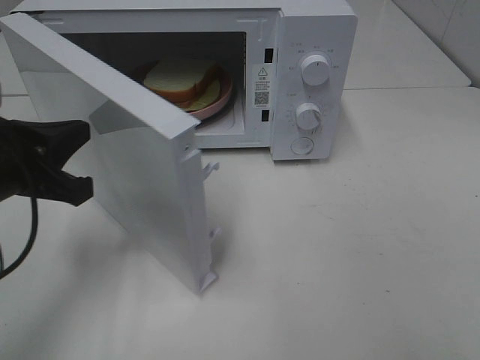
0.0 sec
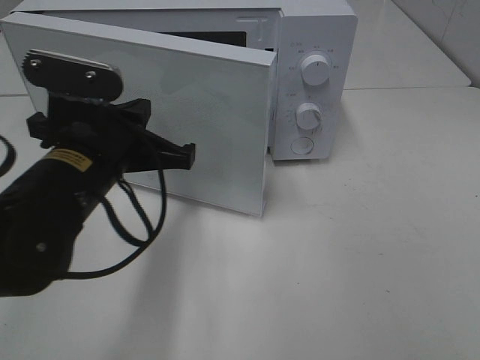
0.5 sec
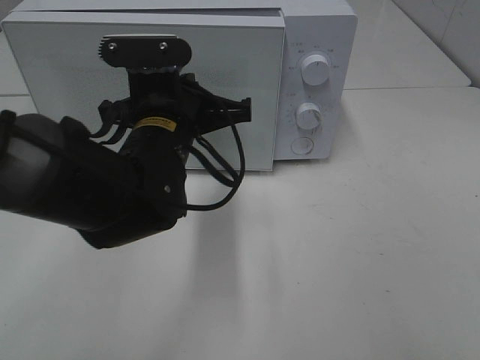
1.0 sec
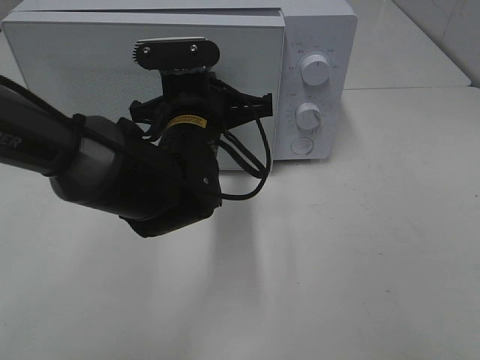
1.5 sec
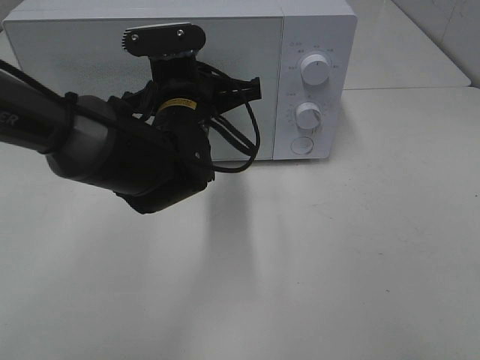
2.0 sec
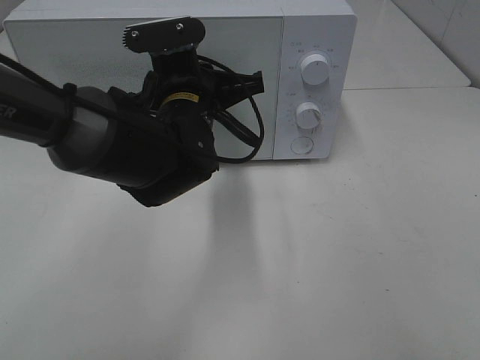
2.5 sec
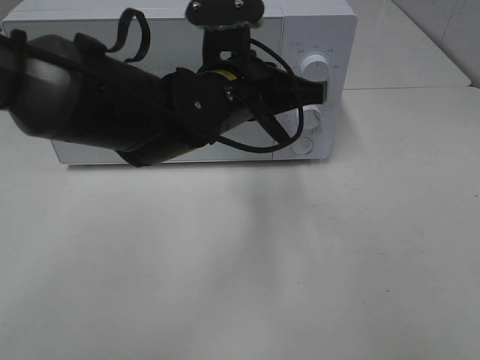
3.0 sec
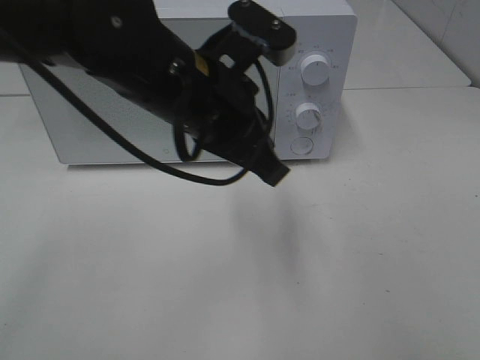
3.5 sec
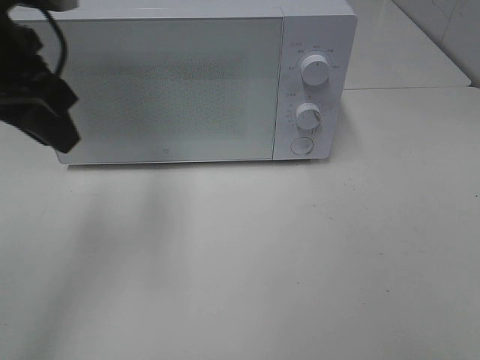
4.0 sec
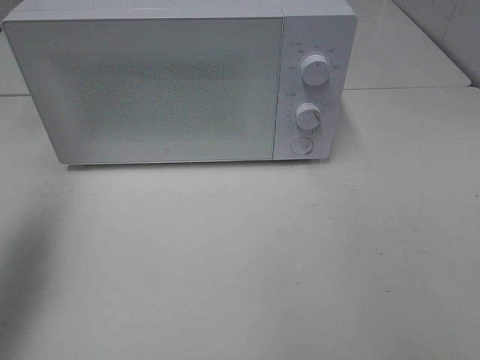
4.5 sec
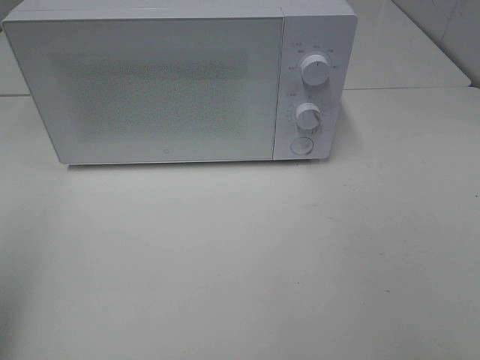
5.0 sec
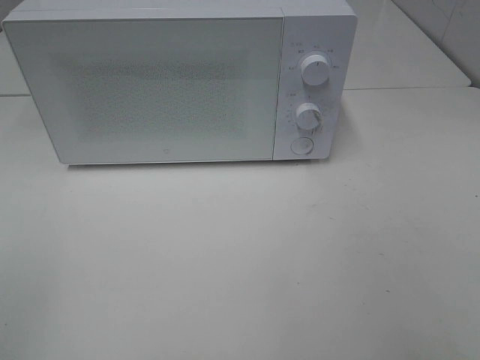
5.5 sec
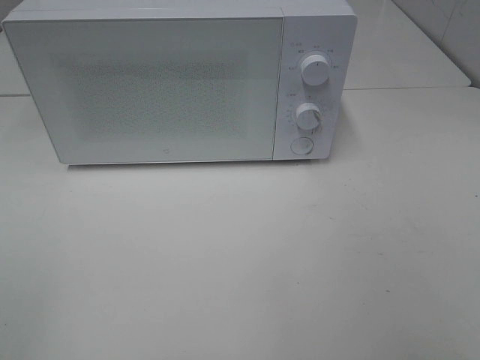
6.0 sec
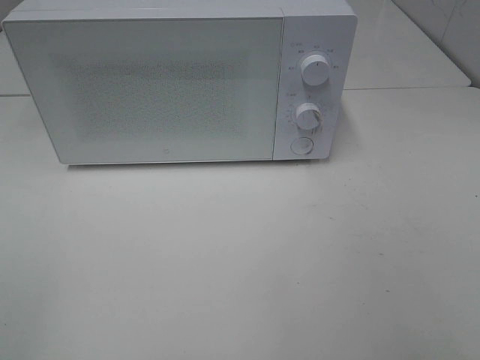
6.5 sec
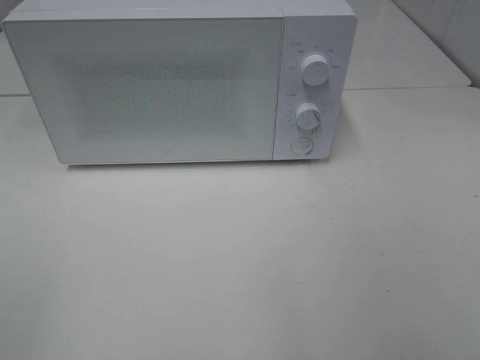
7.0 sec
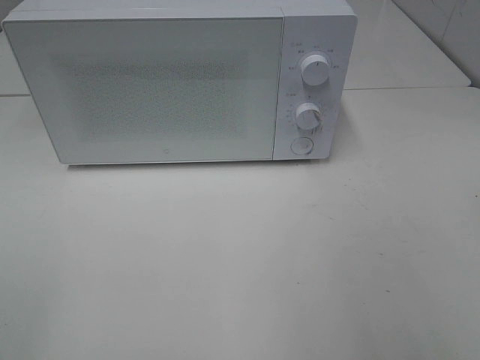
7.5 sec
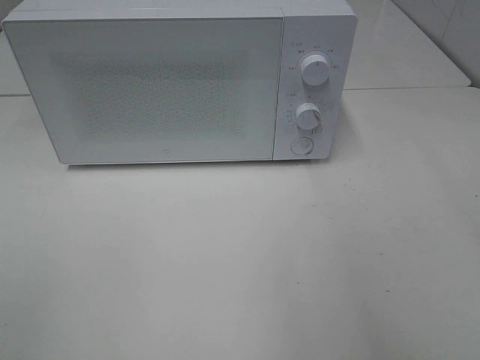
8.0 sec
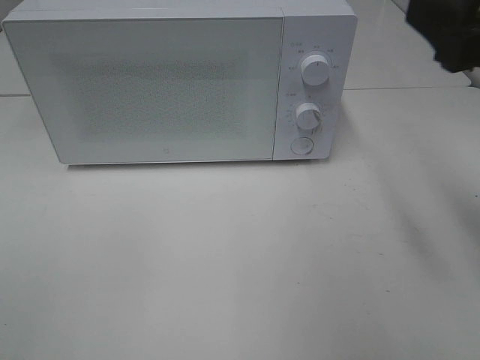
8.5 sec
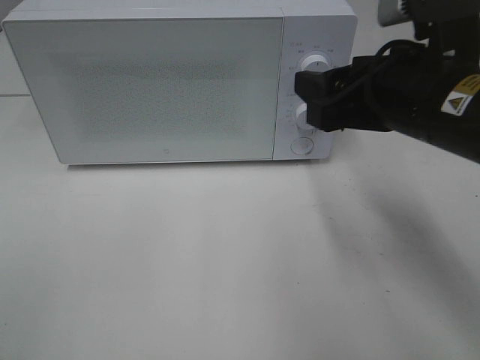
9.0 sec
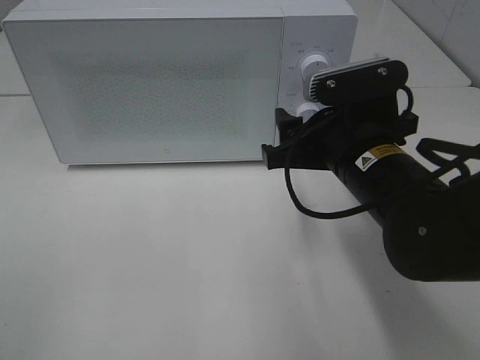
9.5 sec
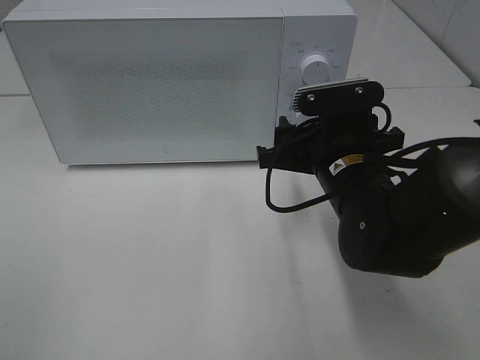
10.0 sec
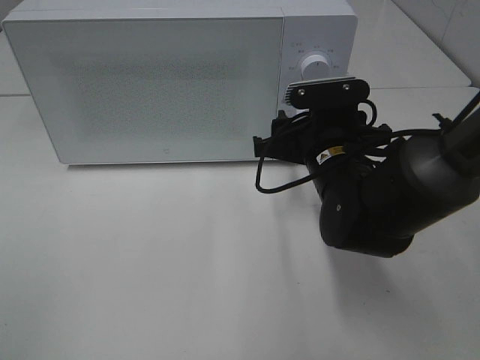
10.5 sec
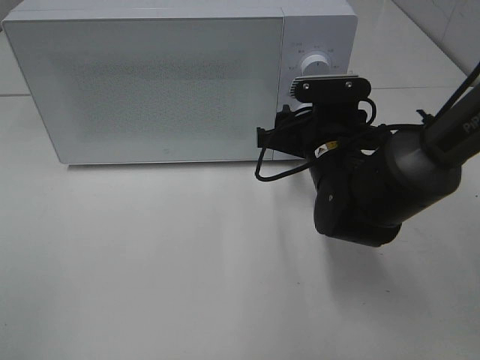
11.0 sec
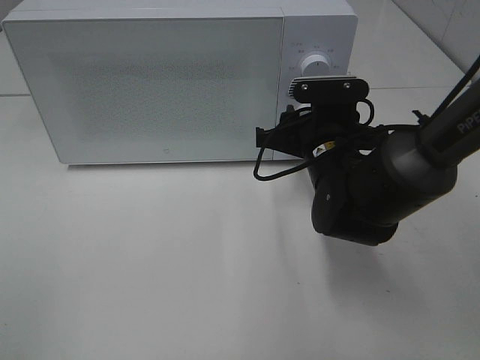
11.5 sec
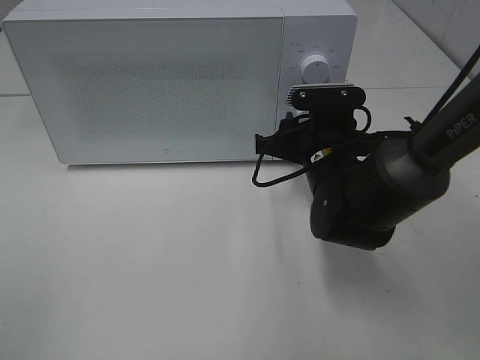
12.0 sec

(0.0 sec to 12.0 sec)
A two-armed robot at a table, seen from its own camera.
Task of the whole recording: Heat Sandwich.
Step, 0.0 sec - 3.5 sec: Left hand: close the microwave door.
0.0 sec - 2.0 sec: The left gripper heads to the right and forward, covering some 20 cm.
2.0 sec - 4.0 sec: The left gripper travels to the left and upward by approximately 20 cm, and opens.
4.0 sec - 6.0 sec: The left gripper goes roughly 30 cm backward, and opens up.
8.0 sec - 10.0 sec: The right gripper travels downward, forward and to the left by some 30 cm.
10.0 sec - 12.0 sec: The right gripper moves approximately 5 cm.

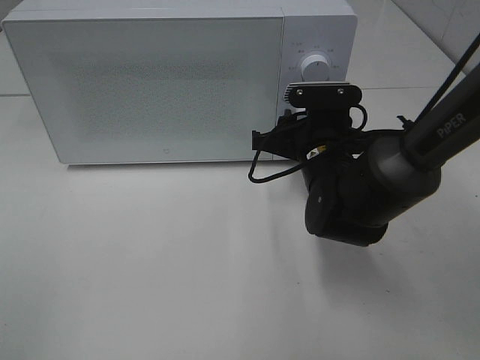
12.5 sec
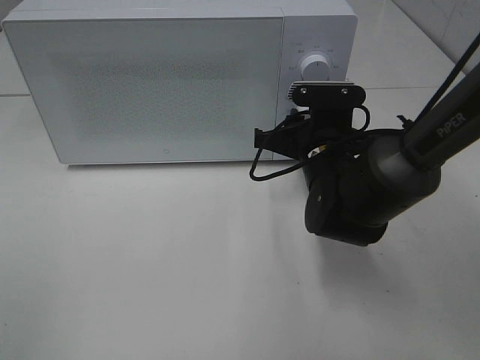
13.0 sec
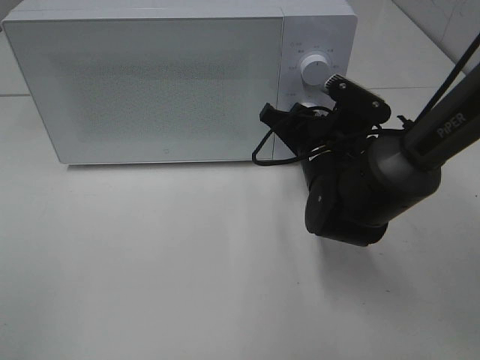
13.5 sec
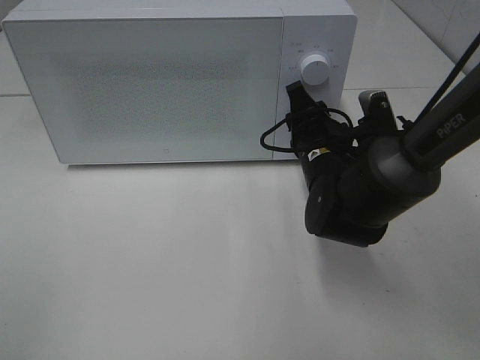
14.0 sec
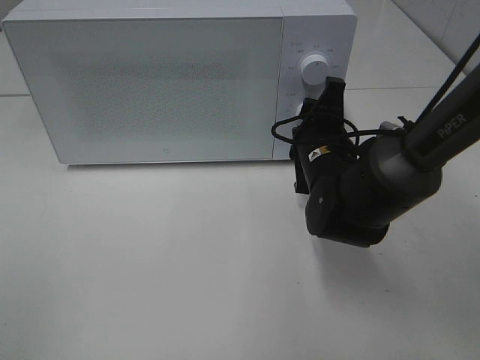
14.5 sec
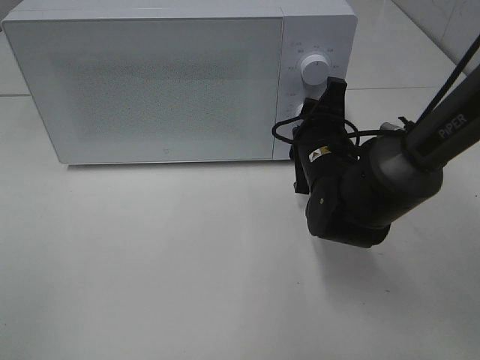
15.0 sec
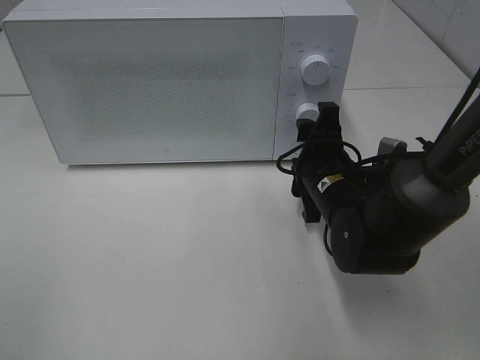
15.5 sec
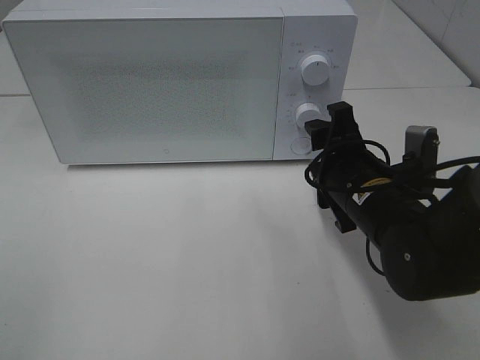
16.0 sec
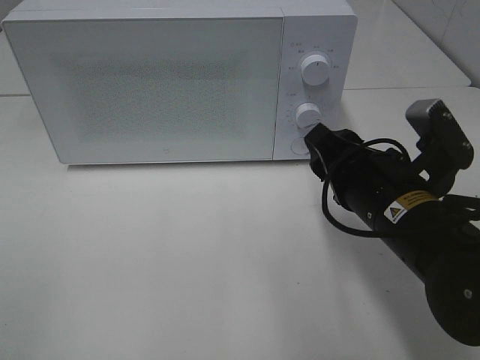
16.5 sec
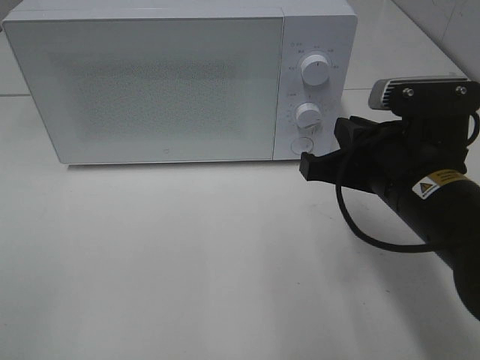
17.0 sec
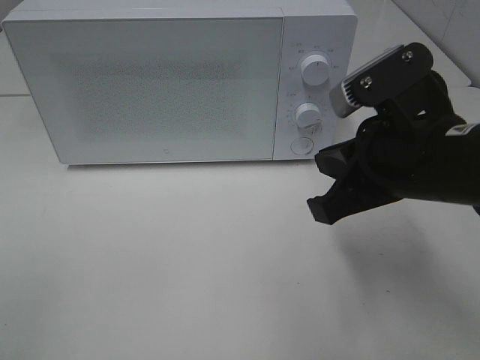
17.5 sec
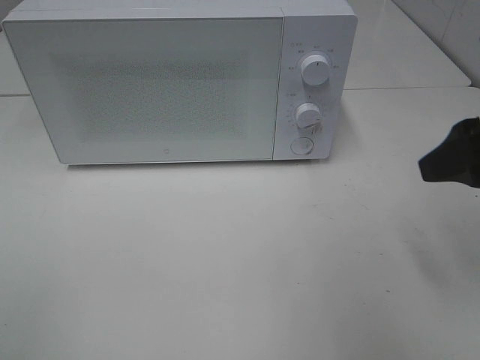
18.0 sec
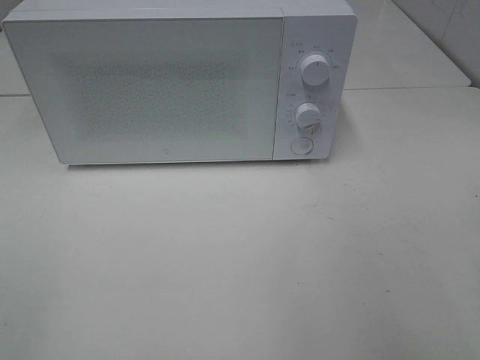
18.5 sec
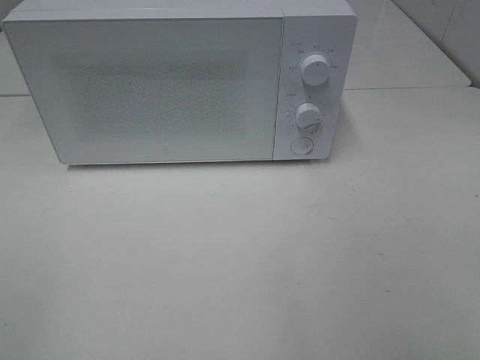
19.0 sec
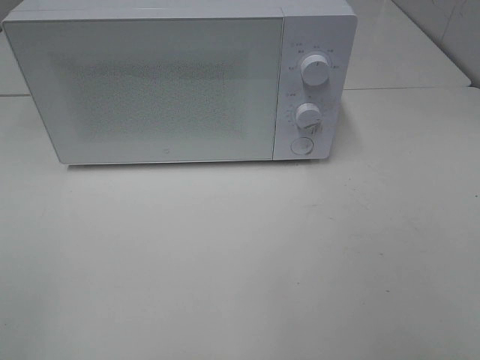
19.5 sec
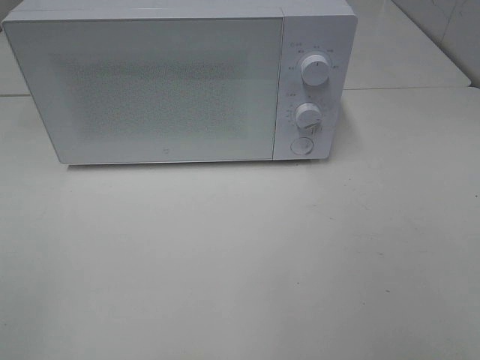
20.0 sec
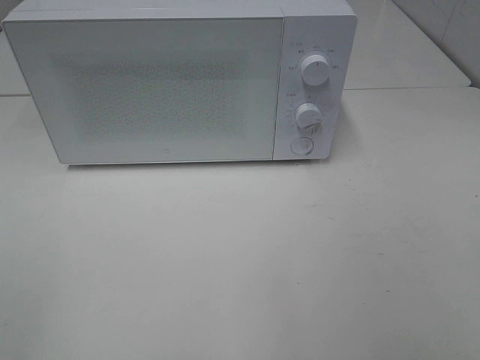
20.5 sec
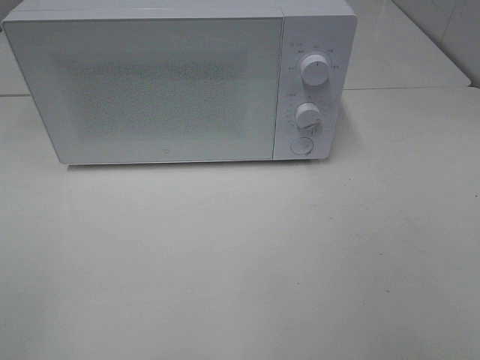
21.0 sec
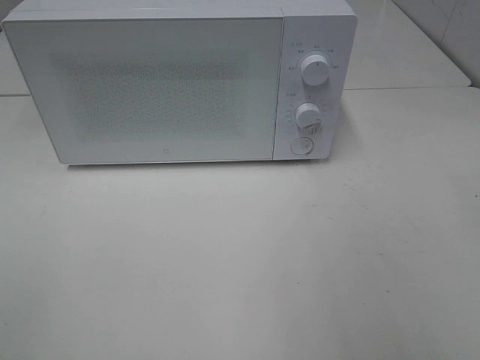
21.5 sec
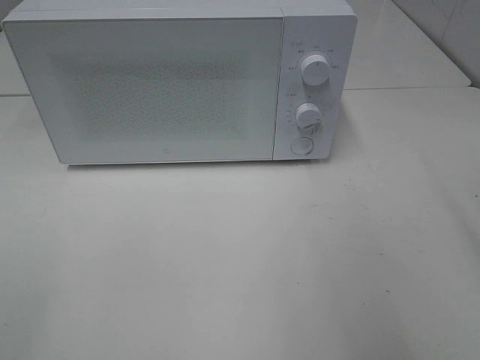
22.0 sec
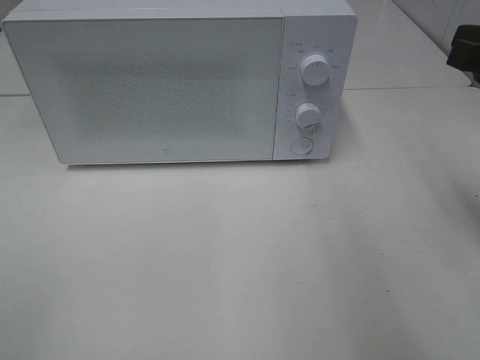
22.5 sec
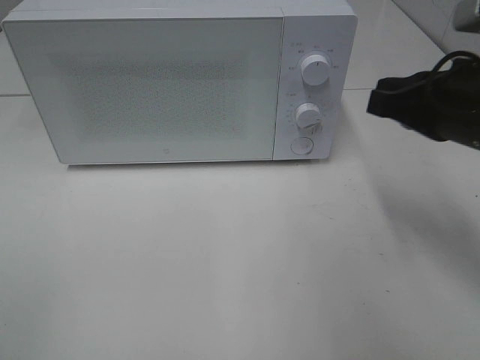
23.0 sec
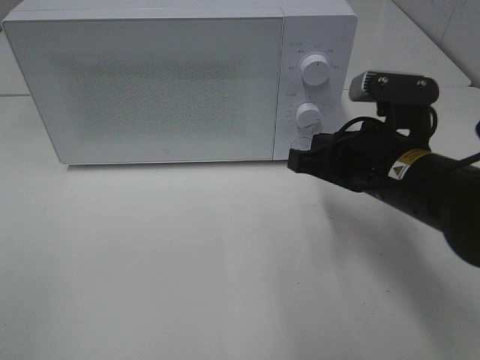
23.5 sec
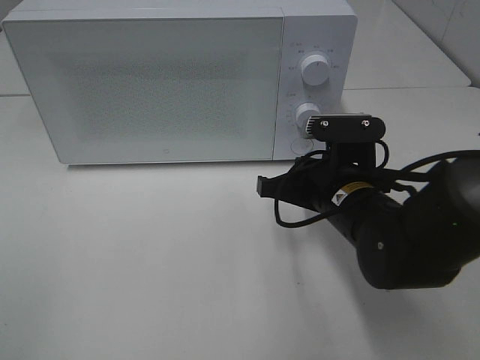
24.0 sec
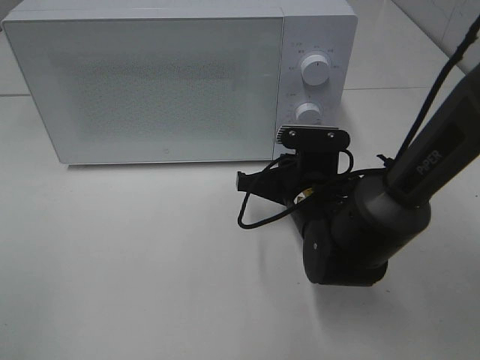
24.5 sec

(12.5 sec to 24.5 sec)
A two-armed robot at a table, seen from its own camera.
Task of the whole recording: Heat Sandwich.
Step, 12.5 sec - 15.5 sec: Right hand: twist timer button.
14.5 sec - 16.5 sec: The right gripper heads backward, covering approximately 10 cm.
16.5 sec - 18.5 sec: The right gripper travels to the right, upward and backward by roughly 25 cm, and closes, then reopens.
20.5 sec - 22.5 sec: The right gripper travels forward by roughly 20 cm, and closes.
22.5 sec - 24.5 sec: The right gripper heads downward and to the left, covering about 25 cm, and closes up.

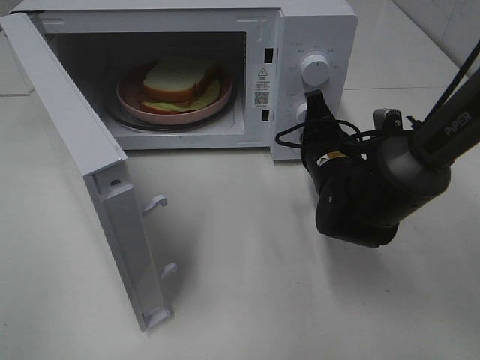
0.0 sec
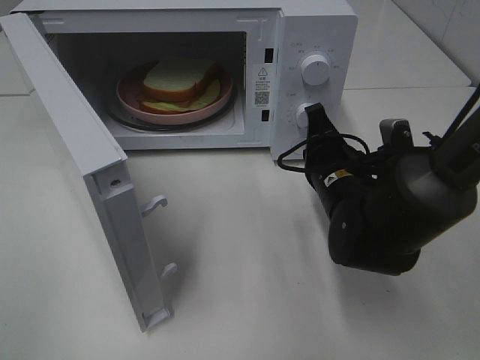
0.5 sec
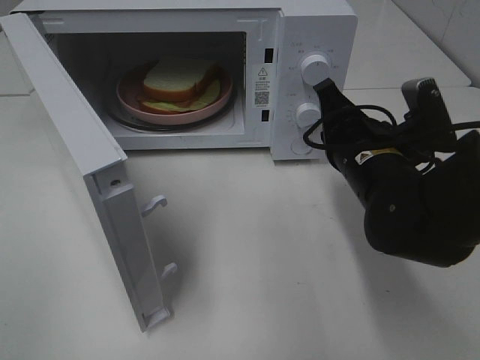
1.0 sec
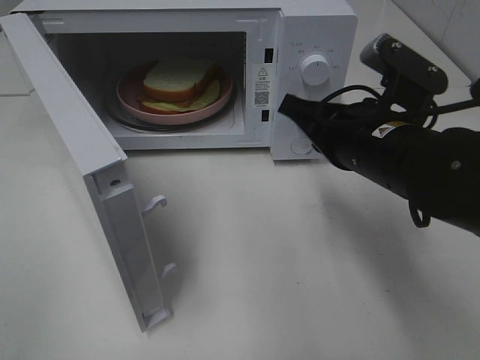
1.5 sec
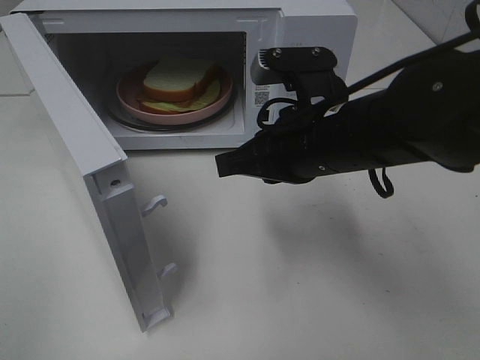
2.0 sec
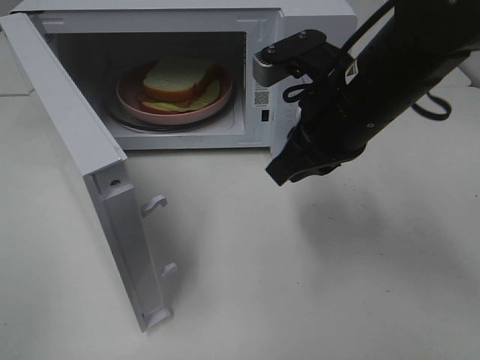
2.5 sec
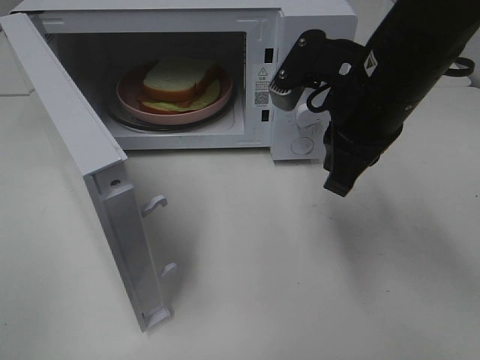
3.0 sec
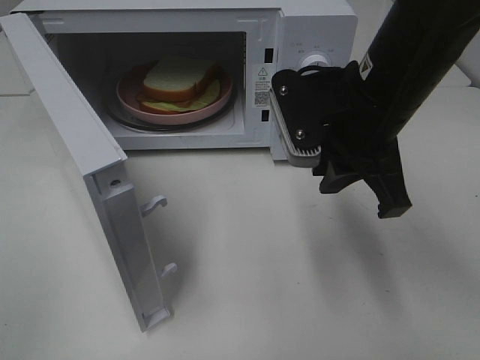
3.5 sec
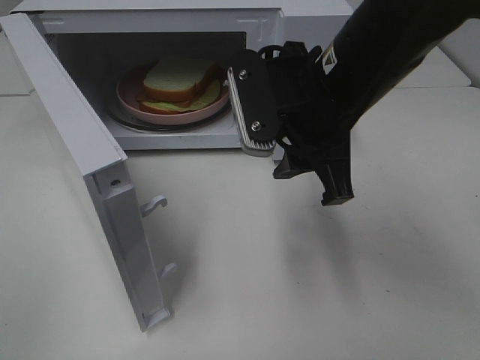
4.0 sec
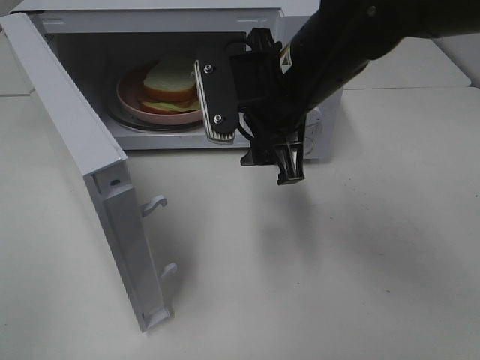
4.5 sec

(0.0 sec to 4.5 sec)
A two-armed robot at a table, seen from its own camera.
Task of the whole recording: Heat Sandwich.
0.0 sec - 2.0 sec: The right gripper goes roughly 15 cm upward and backward.
2.0 sec - 4.5 sec: The right gripper shifts by about 5 cm, and opens.
